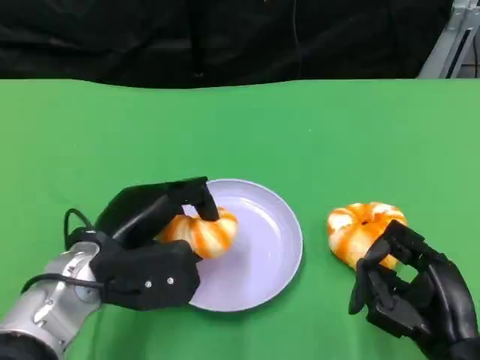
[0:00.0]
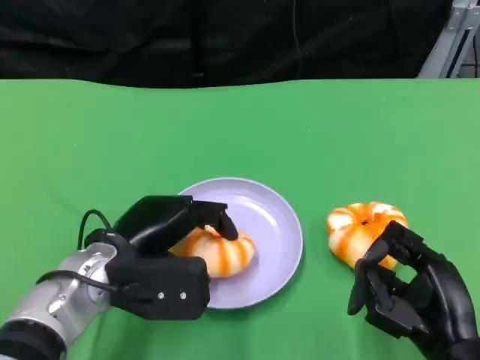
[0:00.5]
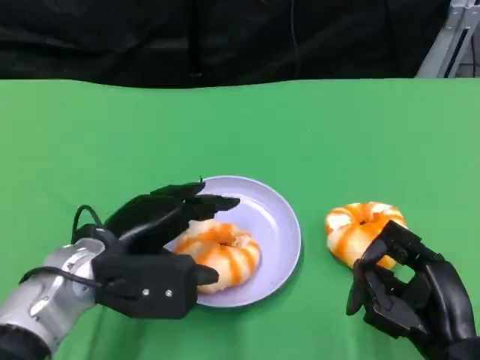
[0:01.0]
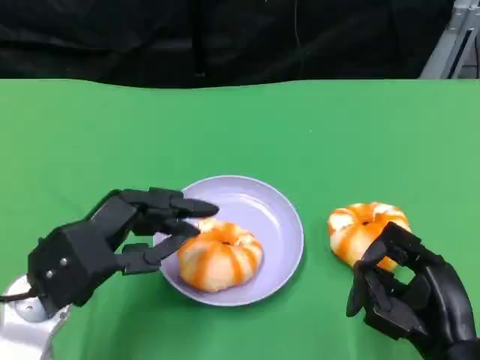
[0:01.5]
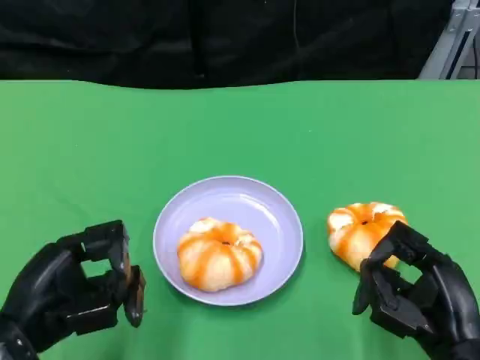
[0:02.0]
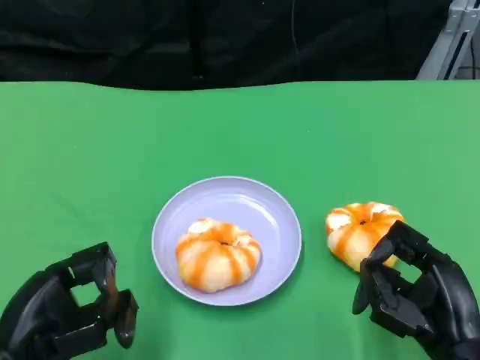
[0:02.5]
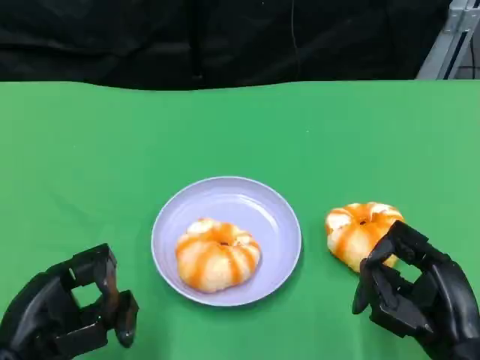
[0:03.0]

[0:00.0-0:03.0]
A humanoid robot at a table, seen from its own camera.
Task of the whole recording: Grasp the bread from the table and place it into the plate.
0:00.0 to 0:01.5: The left hand moves roughly 5 cm.
0:01.5 to 0:03.0: The left hand travels backward by approximately 5 cm.

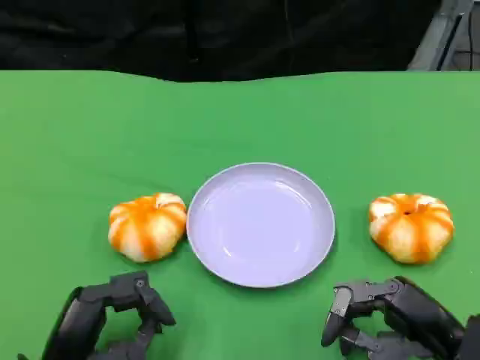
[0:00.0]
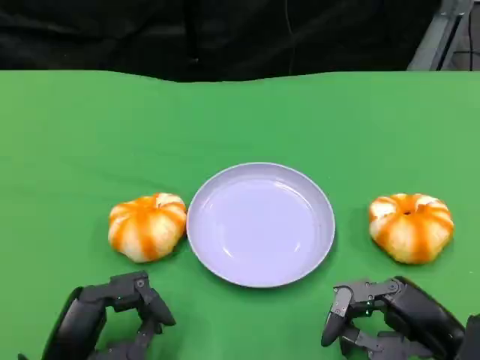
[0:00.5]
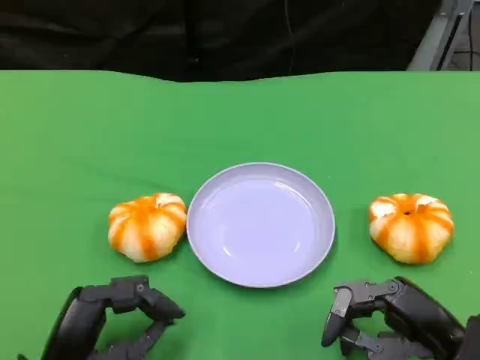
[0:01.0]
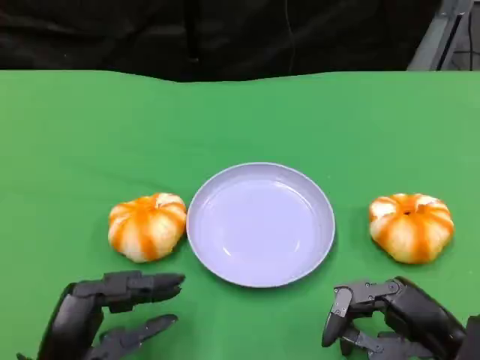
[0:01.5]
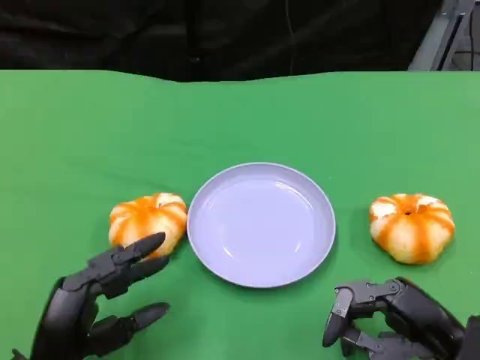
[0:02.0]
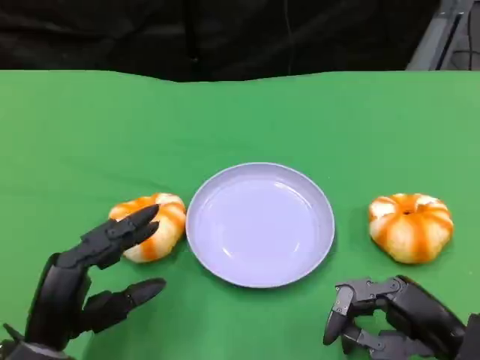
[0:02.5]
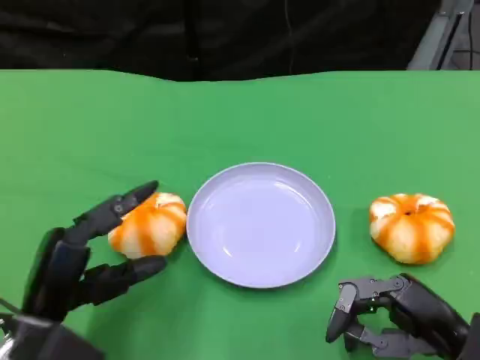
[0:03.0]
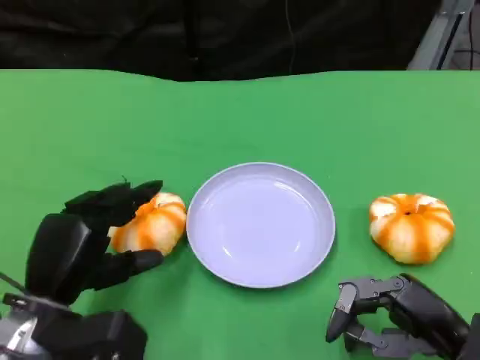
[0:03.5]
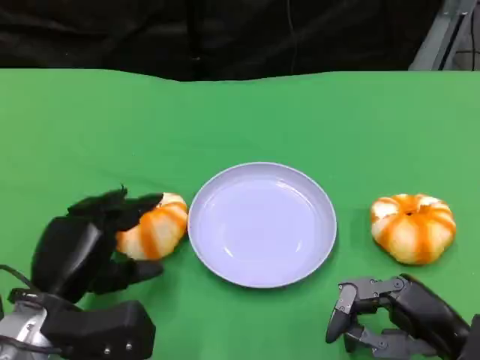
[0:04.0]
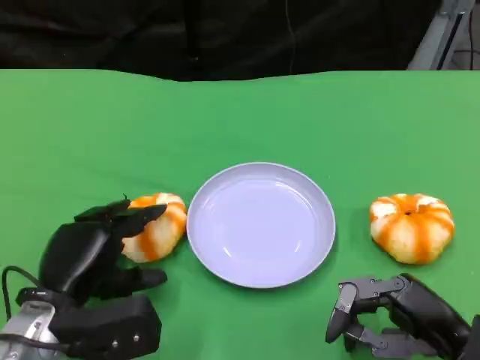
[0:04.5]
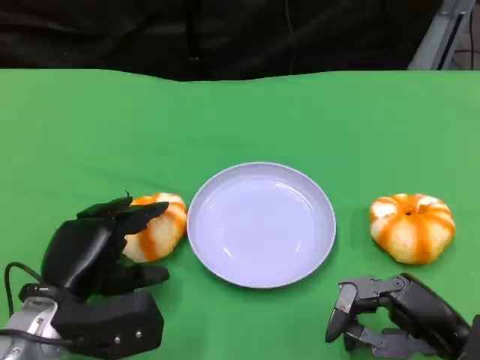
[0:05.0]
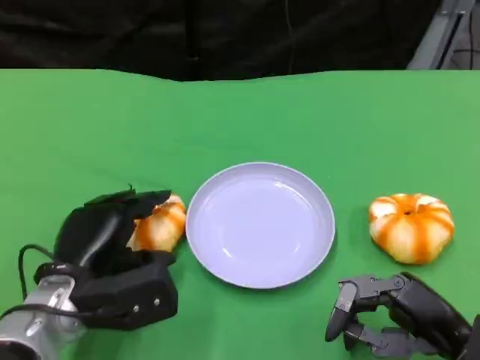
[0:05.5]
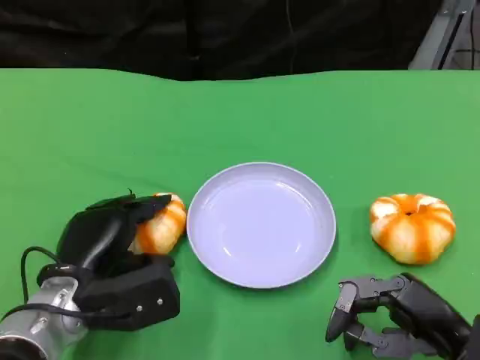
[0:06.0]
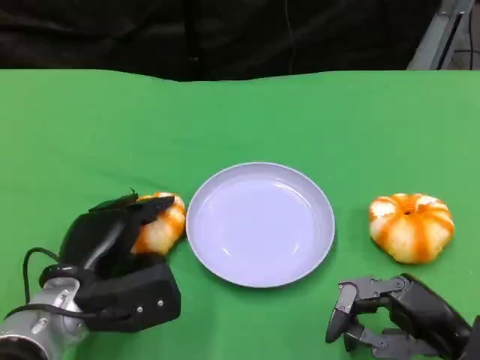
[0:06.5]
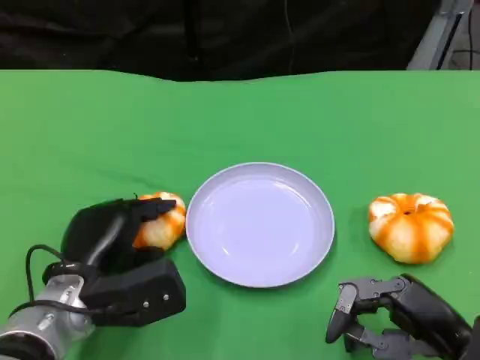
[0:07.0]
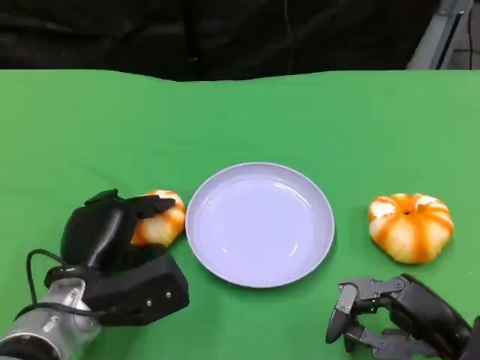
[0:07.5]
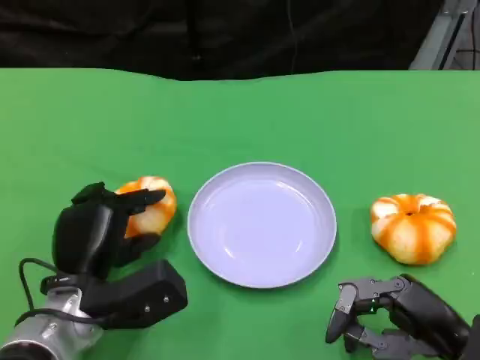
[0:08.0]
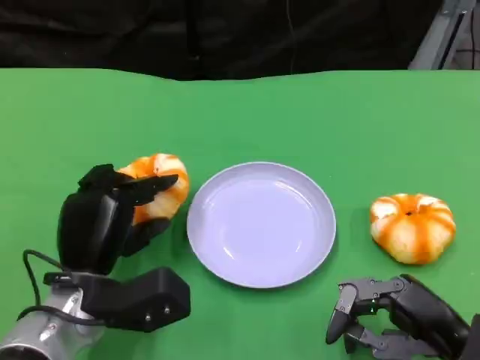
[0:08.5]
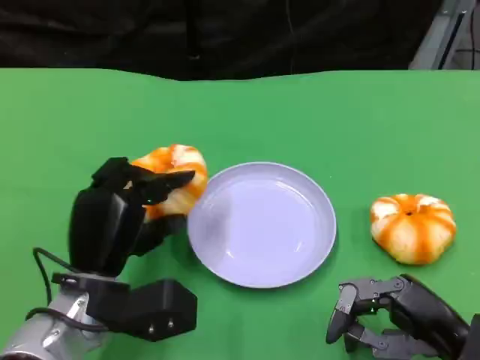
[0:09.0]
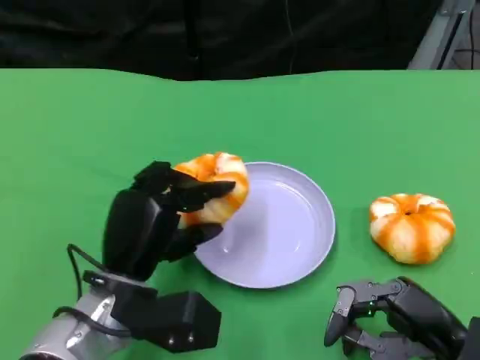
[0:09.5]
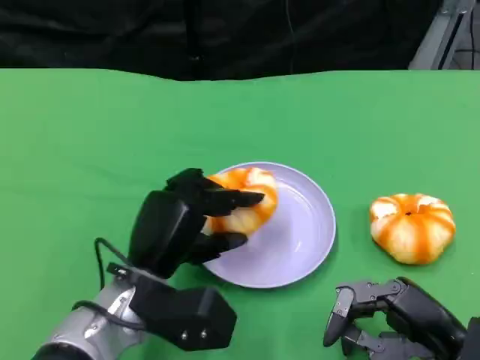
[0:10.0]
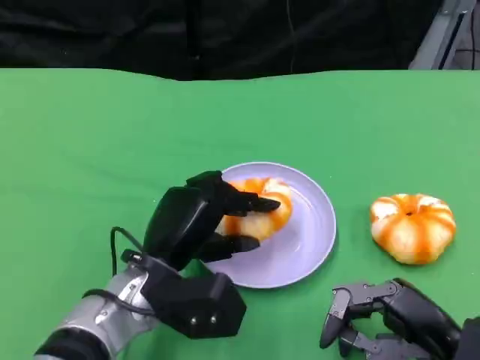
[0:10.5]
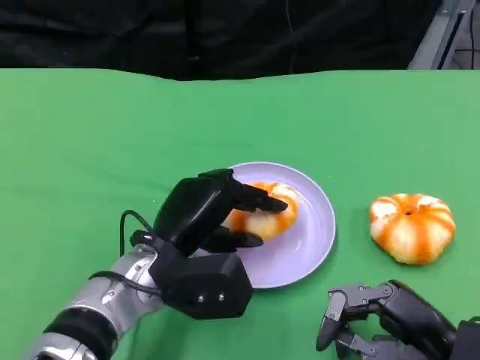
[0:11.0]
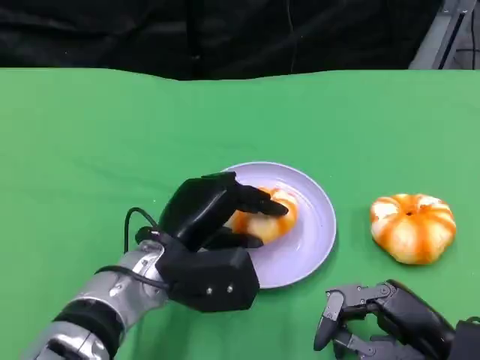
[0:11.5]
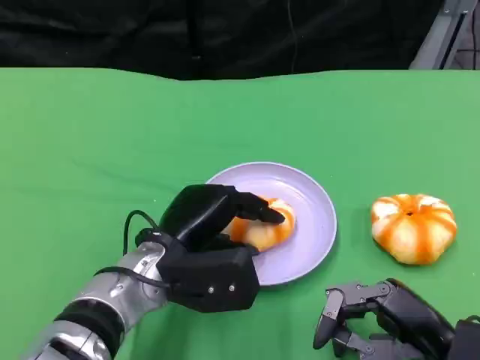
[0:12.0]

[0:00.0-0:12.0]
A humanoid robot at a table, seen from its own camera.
Task of the whole recording: Grasp the bread from the table and place it into the plate.
0:00.0 to 0:02.0: The hands make only small movements.
0:02.0 to 0:04.0: The left hand heads forward, covering approximately 5 cm.
0:04.0 to 0:08.0: There are only small adjustments of the hands.
0:08.0 to 0:10.0: The left hand shifts about 5 cm to the right.

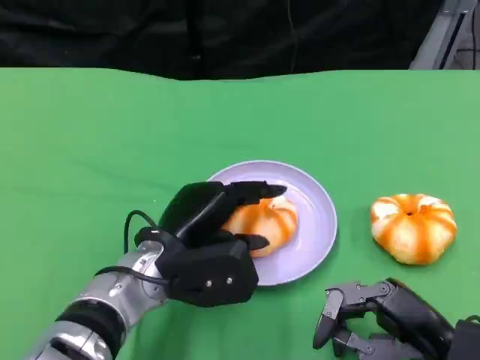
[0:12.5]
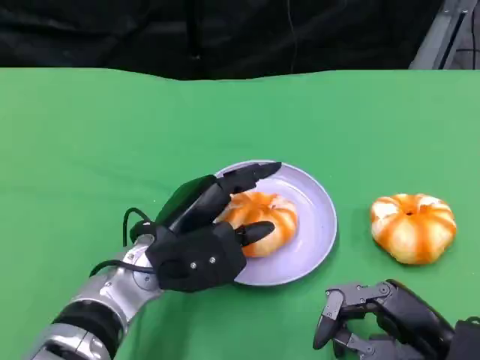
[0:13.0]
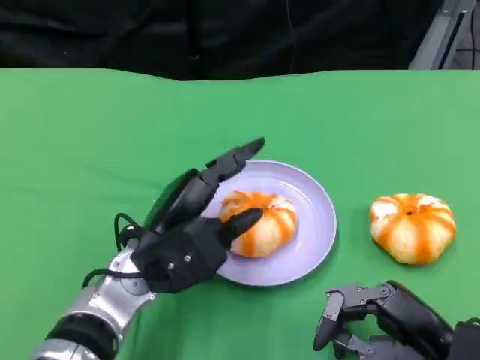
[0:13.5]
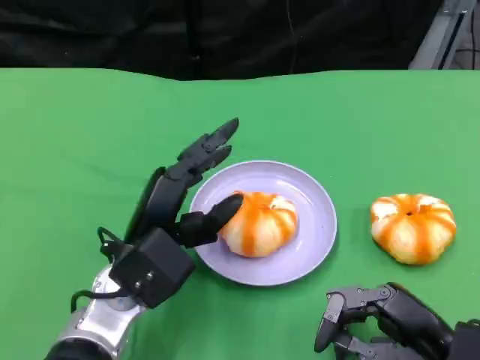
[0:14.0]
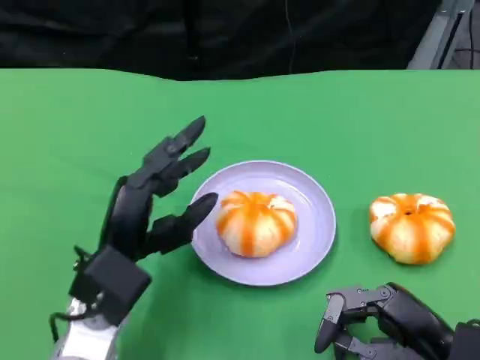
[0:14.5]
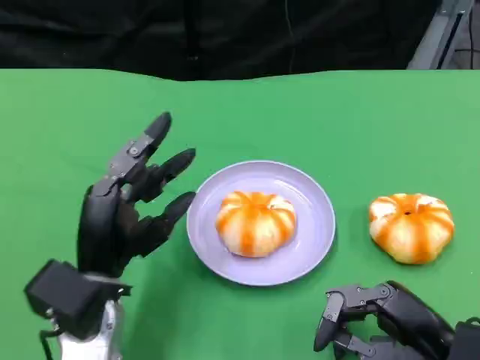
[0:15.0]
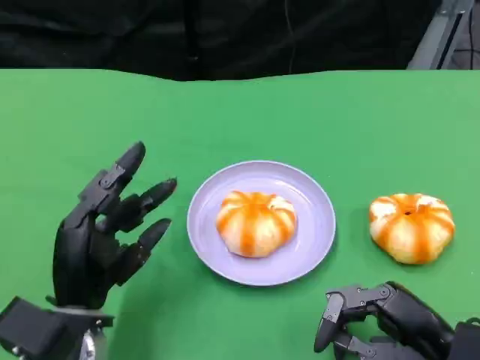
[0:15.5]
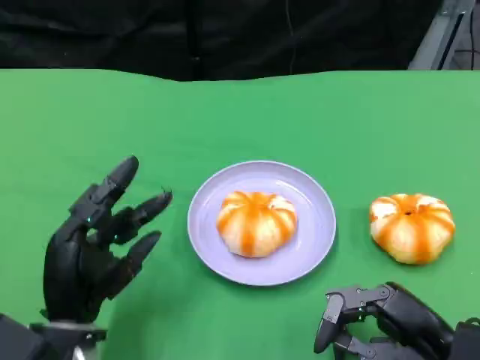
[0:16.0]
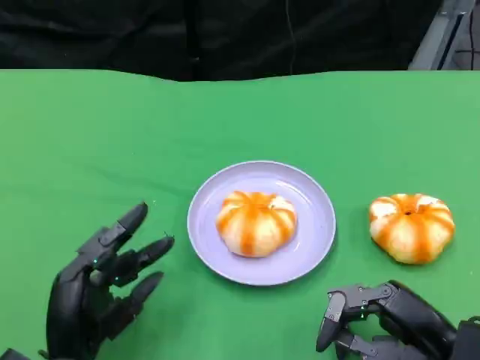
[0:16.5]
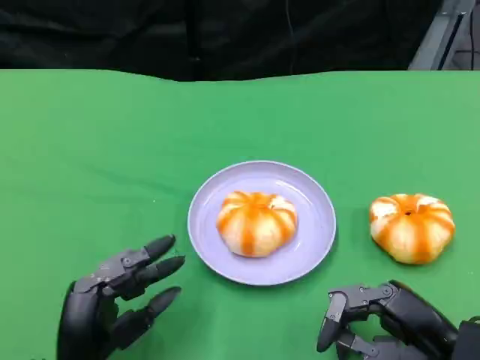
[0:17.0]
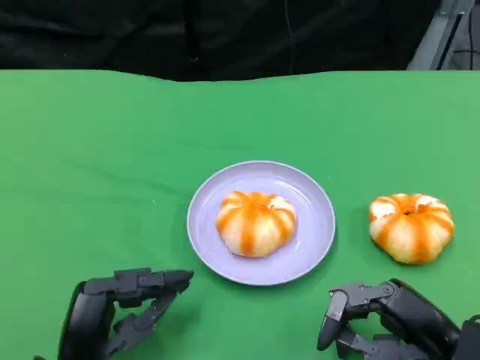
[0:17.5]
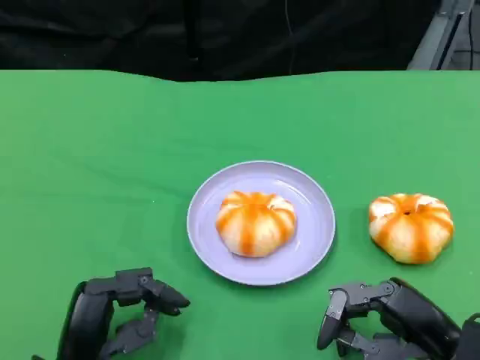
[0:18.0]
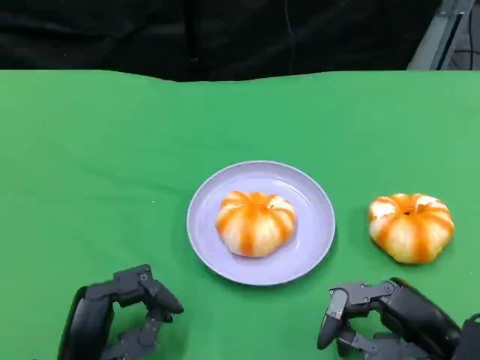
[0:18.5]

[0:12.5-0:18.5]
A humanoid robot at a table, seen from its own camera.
Task of the whole recording: Grasp the bread from the table and place it into the plate.
0:12.5 to 0:14.5: The left hand changes place by about 5 cm.
0:14.5 to 0:16.5: The left hand goes roughly 10 cm backward and downward.
0:16.5 to 0:18.5: The hands stay close to where they were, moving slightly.

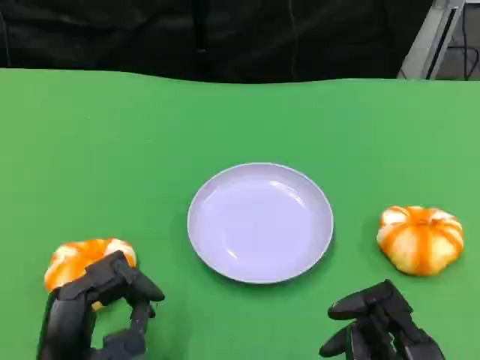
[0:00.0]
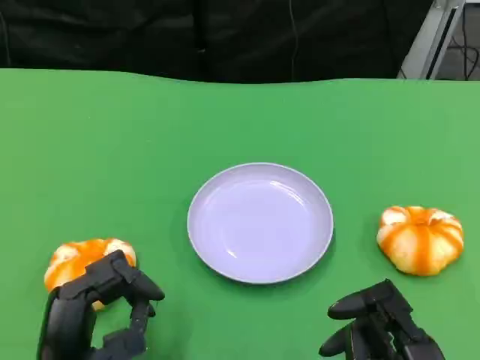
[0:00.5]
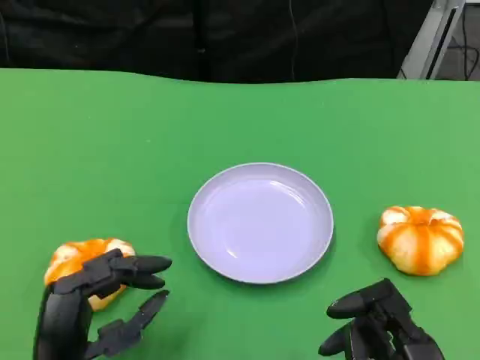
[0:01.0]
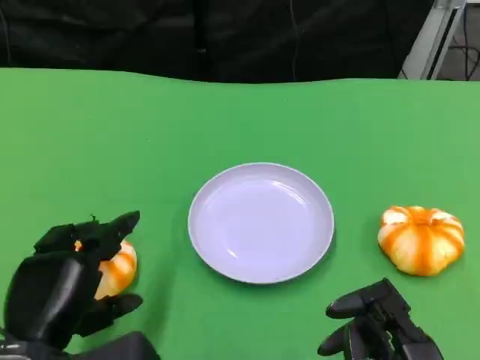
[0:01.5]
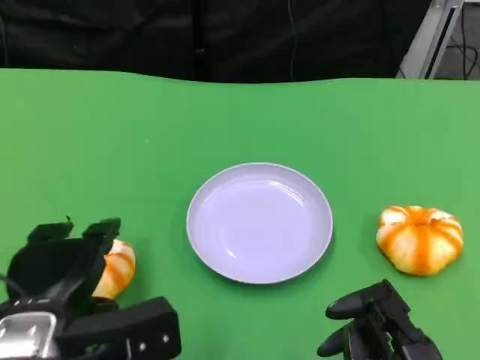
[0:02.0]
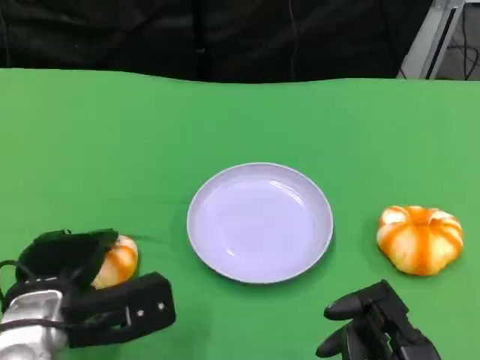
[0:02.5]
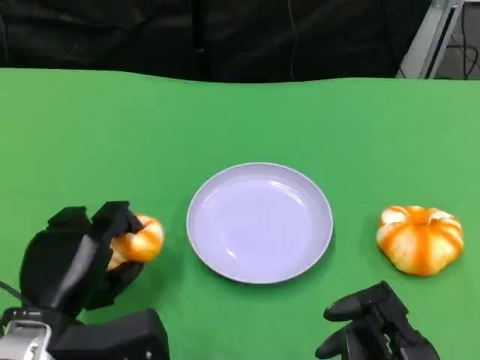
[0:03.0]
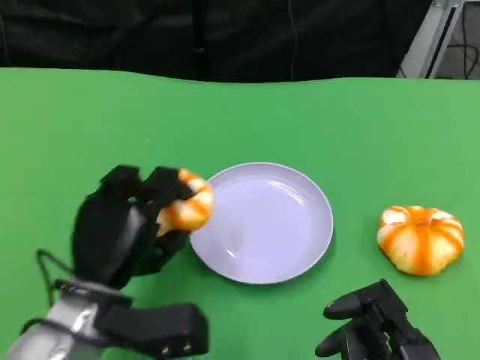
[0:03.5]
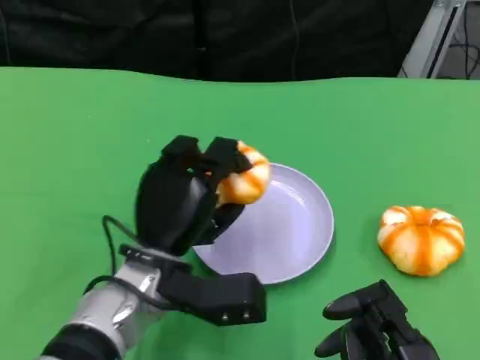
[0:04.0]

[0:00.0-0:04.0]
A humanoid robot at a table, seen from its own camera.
Task of the whole recording: Grasp the bread from the table and place it into the plate.
0:00.0 to 0:02.0: The left hand goes approximately 5 cm upward.
0:02.0 to 0:04.0: The left hand heads to the right and forward, covering some 10 cm.
